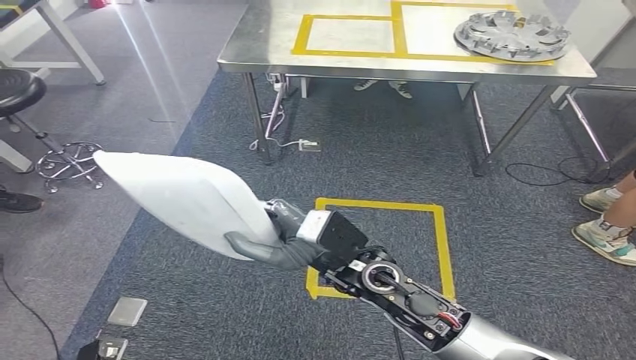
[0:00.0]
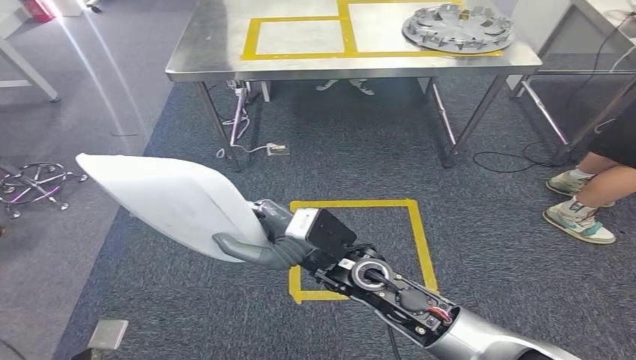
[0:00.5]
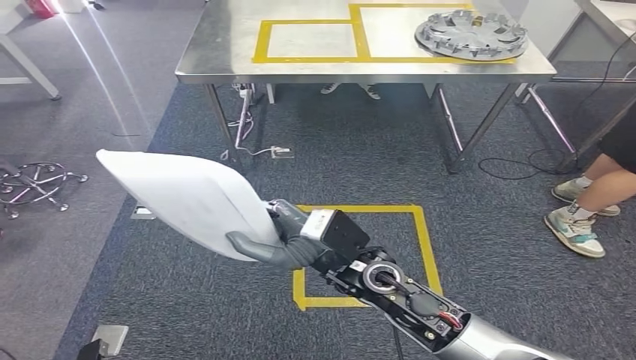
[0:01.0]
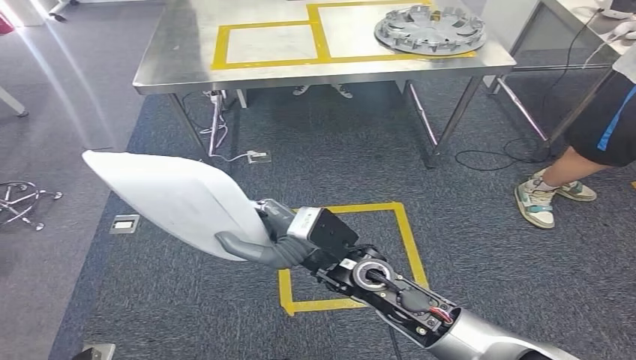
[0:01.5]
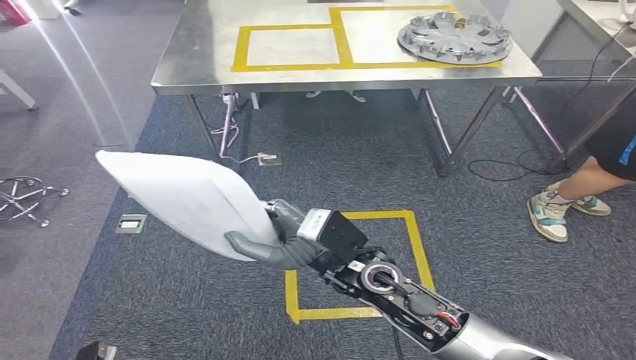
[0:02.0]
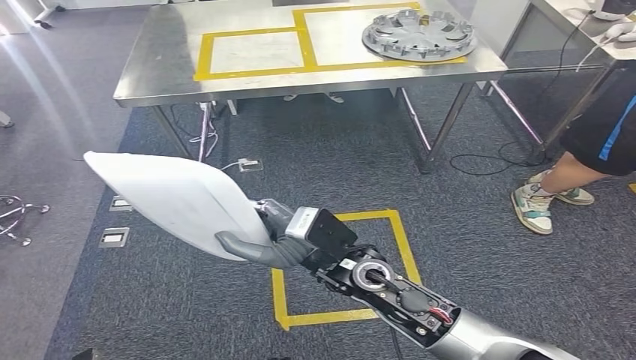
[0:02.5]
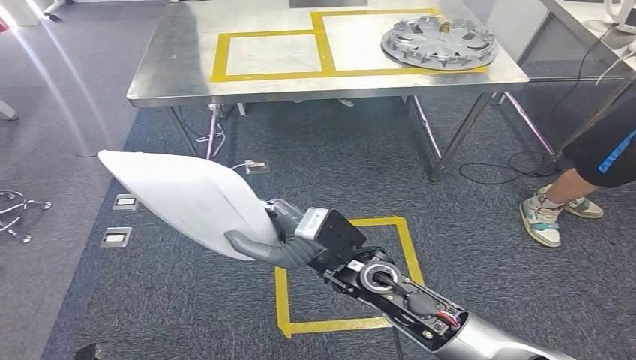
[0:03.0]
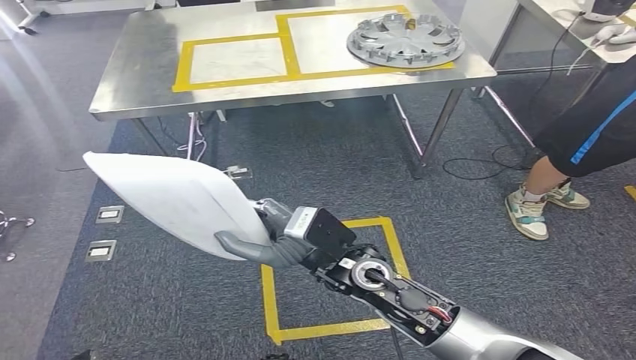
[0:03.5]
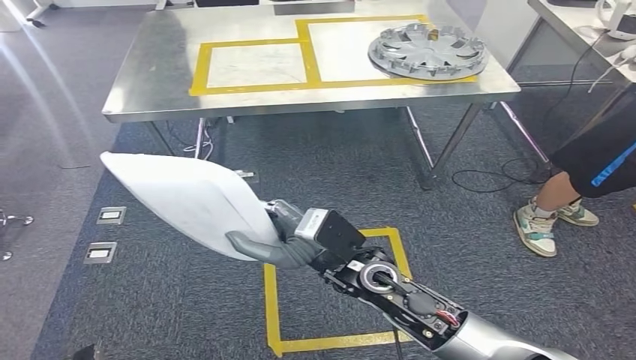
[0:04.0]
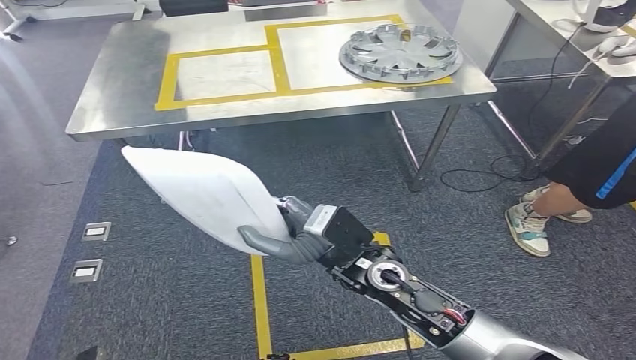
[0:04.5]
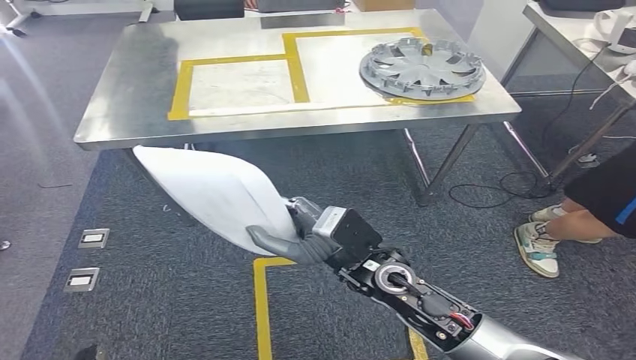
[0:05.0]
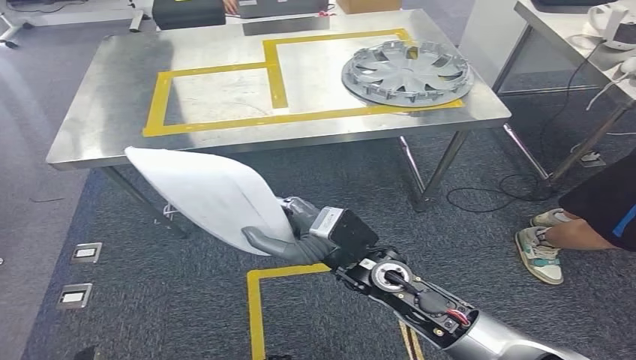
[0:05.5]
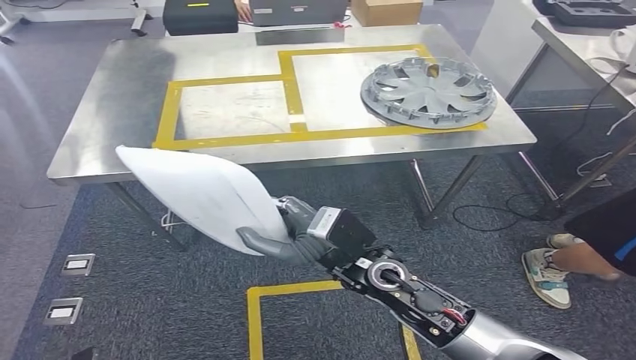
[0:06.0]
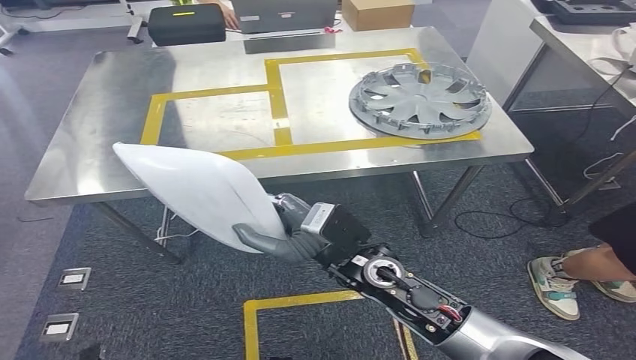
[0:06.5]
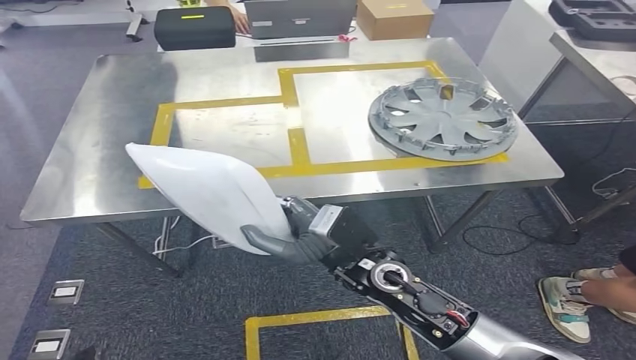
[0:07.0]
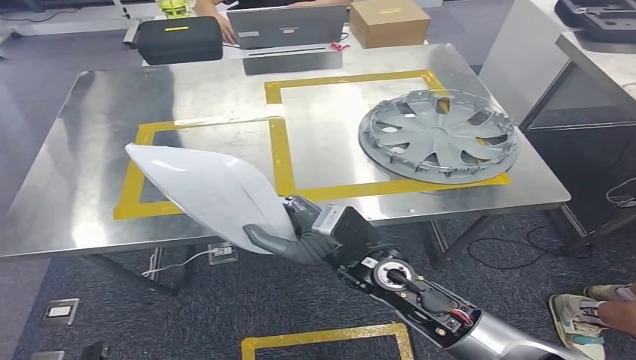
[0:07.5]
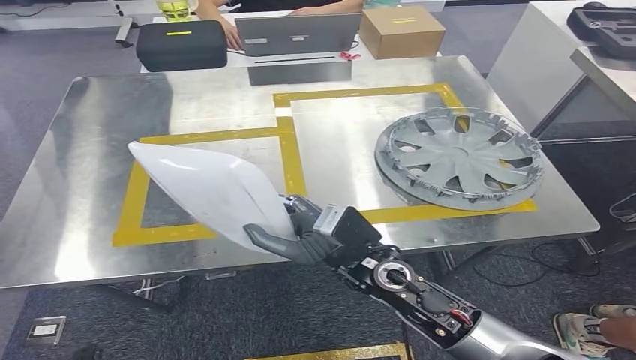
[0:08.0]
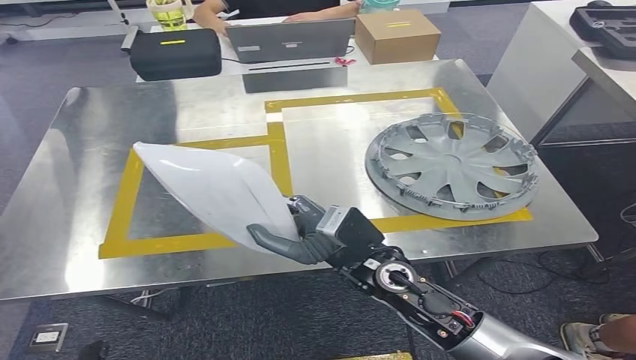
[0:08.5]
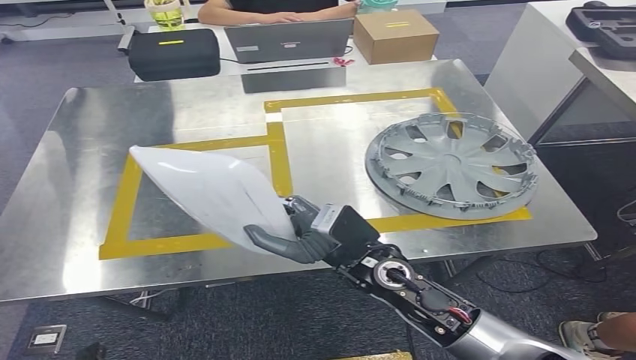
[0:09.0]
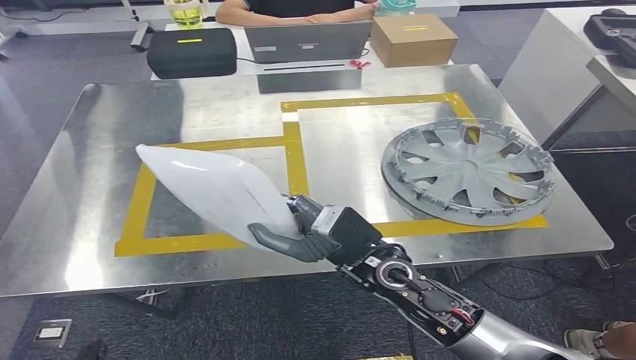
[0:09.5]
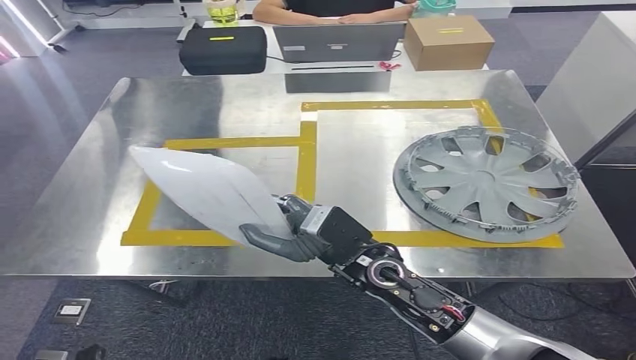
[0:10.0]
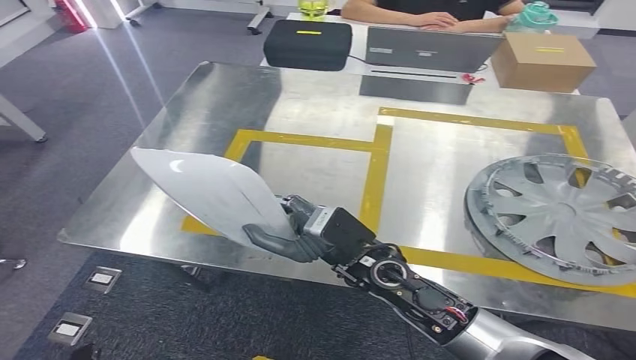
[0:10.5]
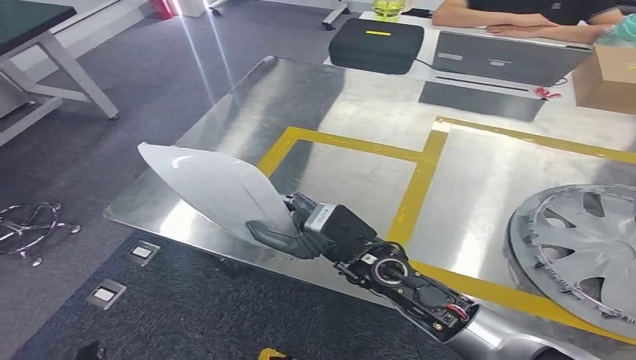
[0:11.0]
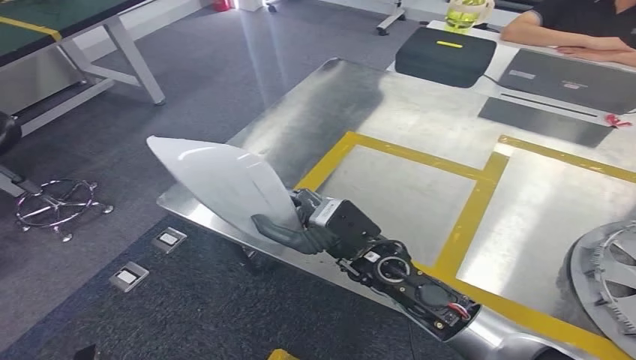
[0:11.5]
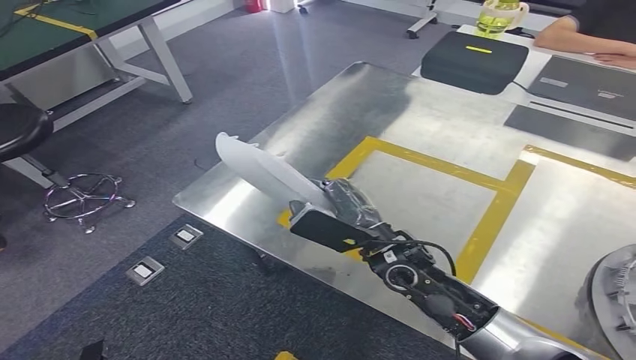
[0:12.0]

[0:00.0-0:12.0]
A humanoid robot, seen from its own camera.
Step, 0:00.0 to 0:07.5: Move the small component to the workbench.

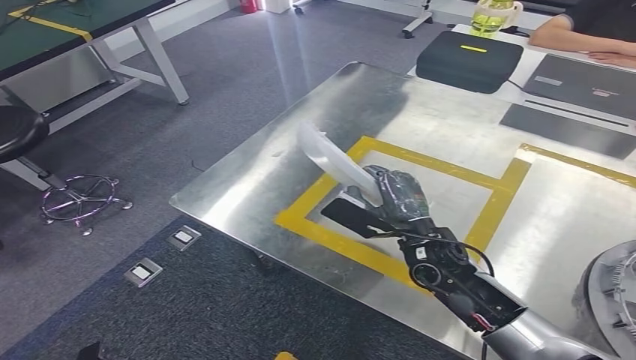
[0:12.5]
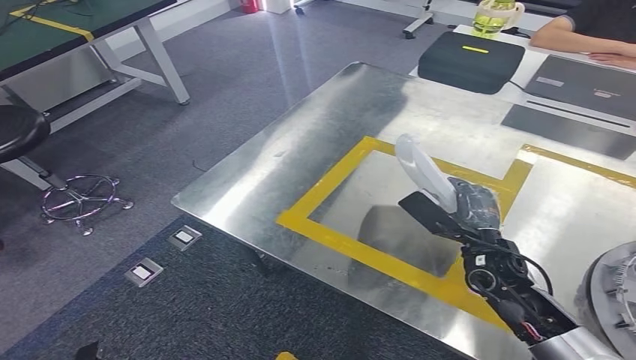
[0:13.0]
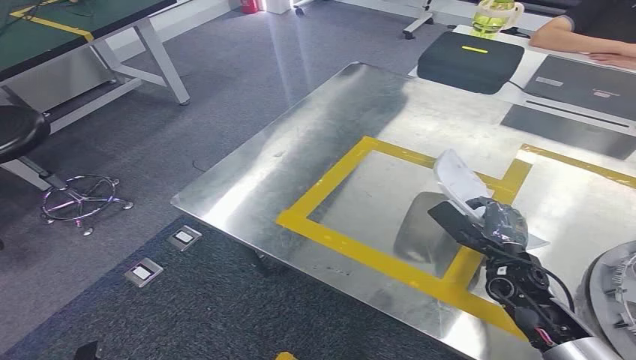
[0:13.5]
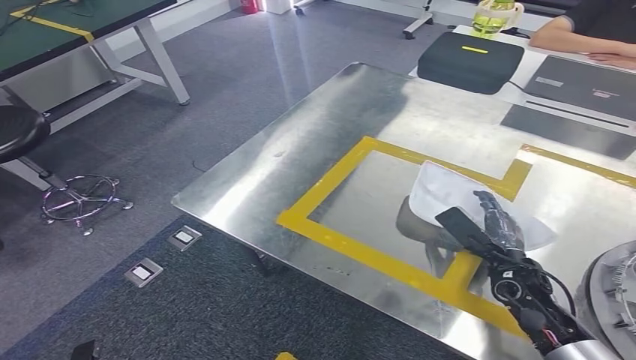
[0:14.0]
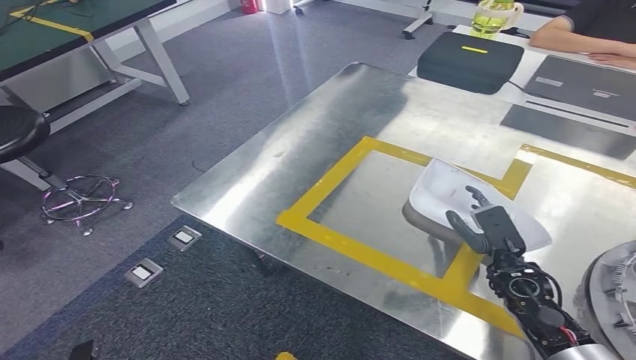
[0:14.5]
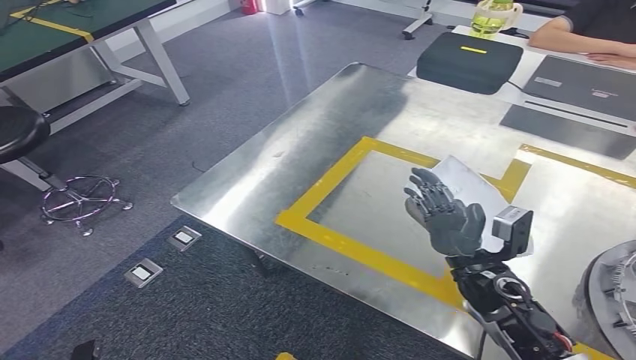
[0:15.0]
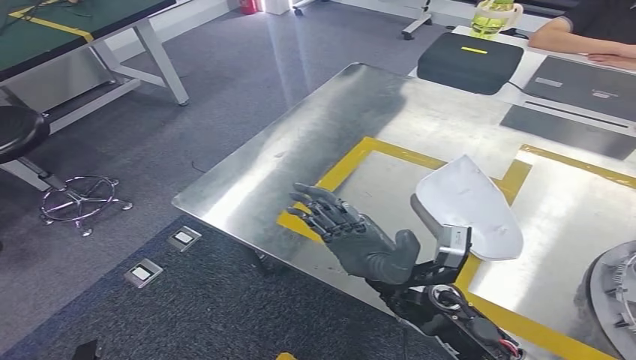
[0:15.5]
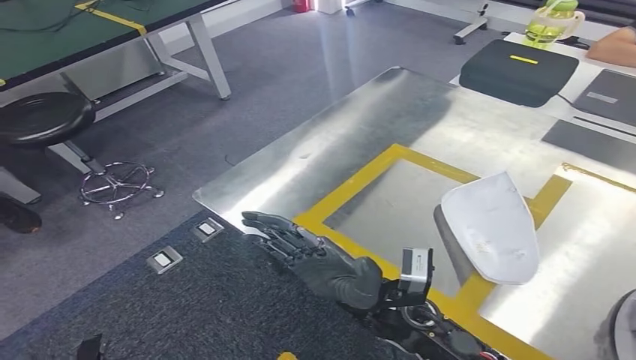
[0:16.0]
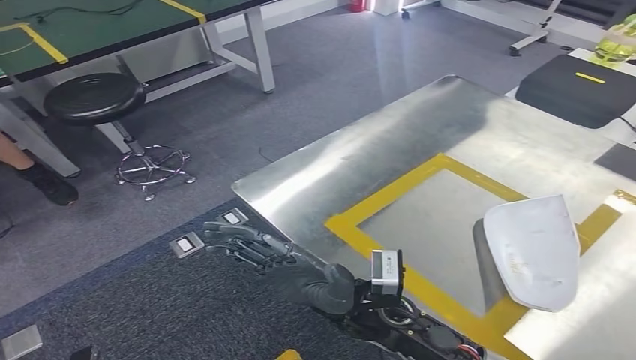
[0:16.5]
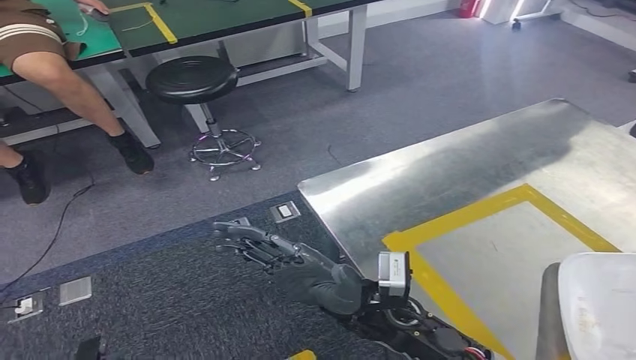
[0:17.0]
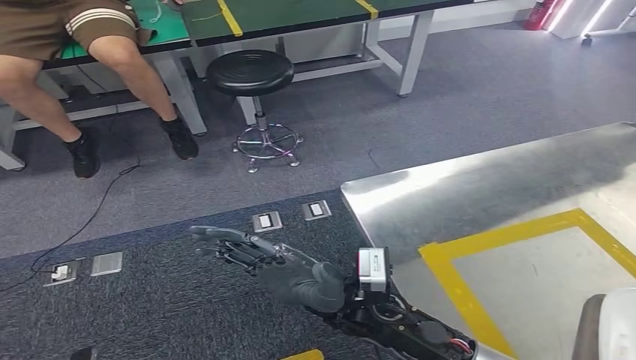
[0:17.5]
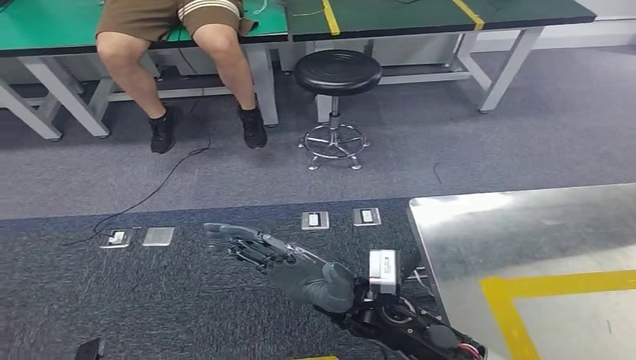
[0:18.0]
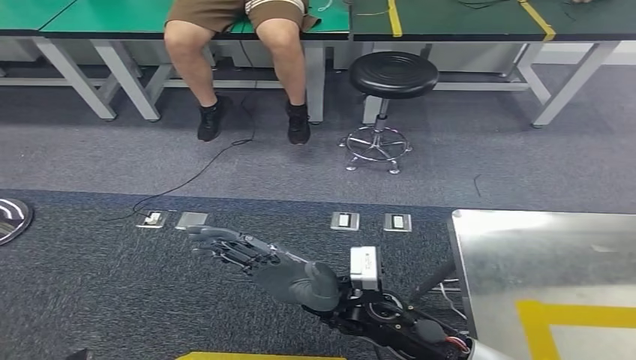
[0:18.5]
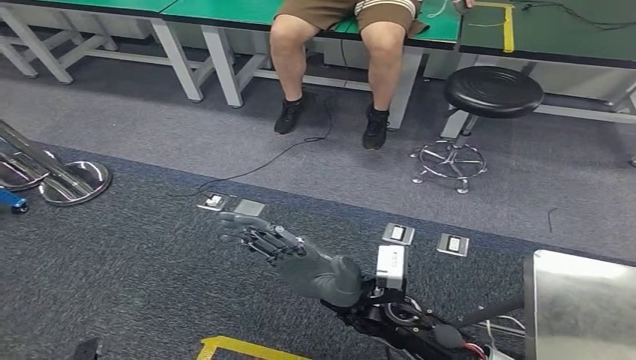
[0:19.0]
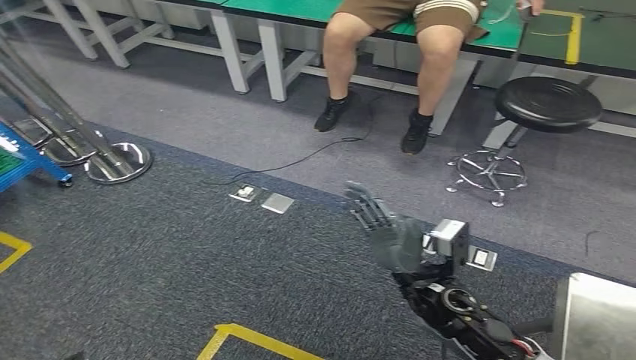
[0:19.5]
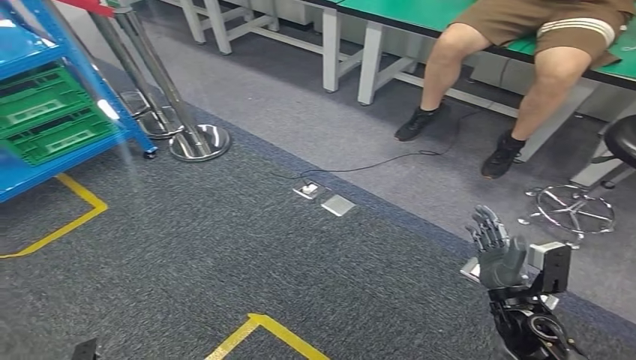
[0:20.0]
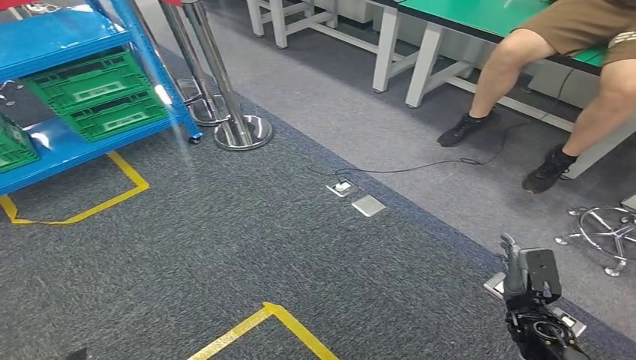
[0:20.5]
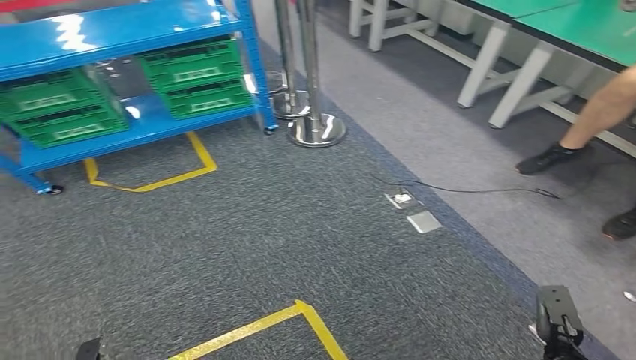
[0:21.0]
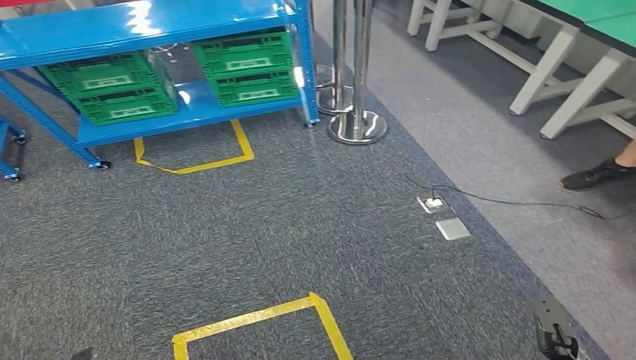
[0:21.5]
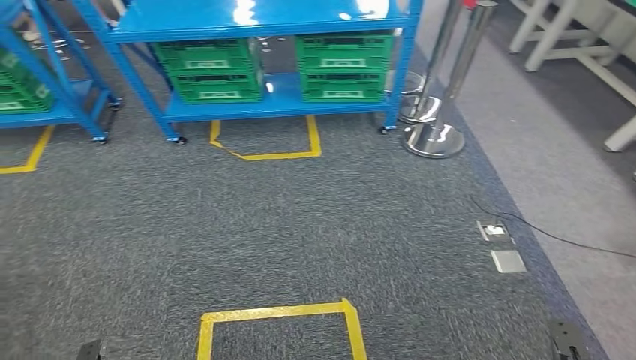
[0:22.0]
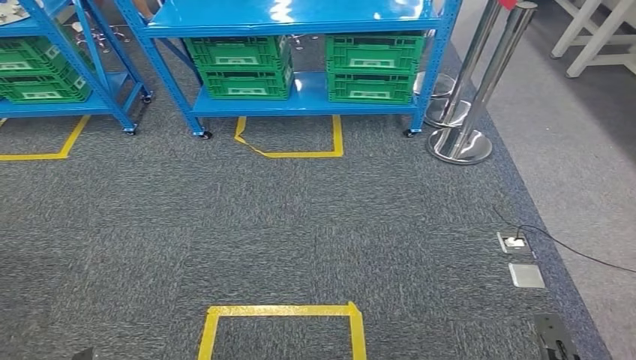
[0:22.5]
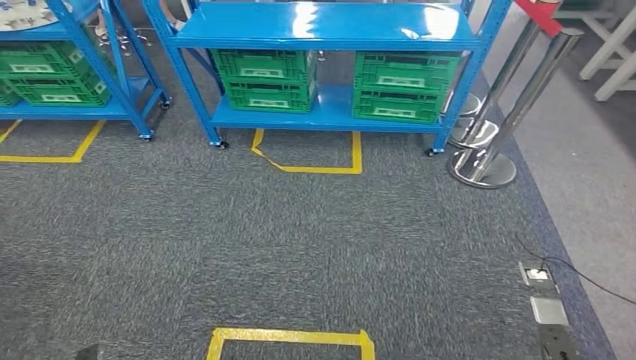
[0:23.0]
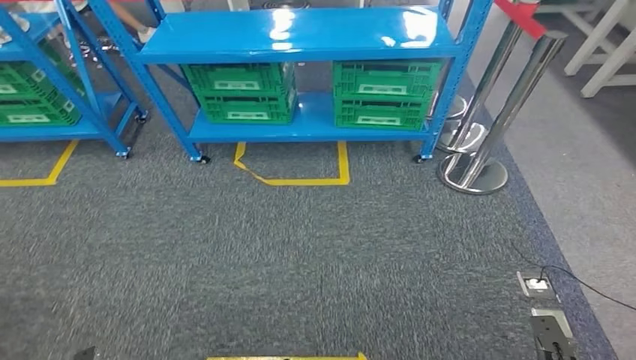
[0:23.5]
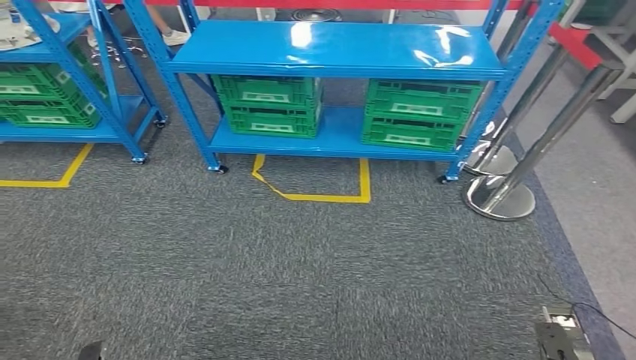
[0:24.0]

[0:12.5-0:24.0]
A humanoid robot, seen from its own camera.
Step, 0:12.5 to 0:17.0: Insert the small component into the corresponding slot on the workbench.
0:12.5 to 0:14.5: The right hand moves to the right and downward, roughly 20 cm.
